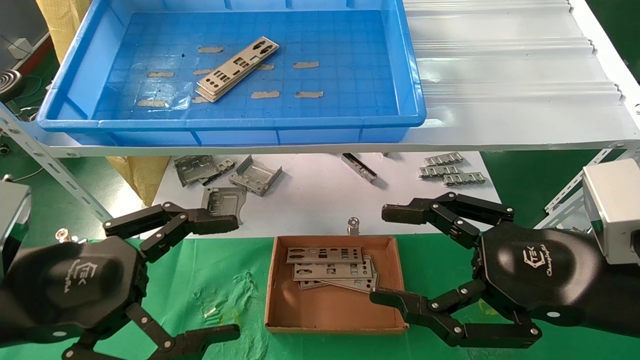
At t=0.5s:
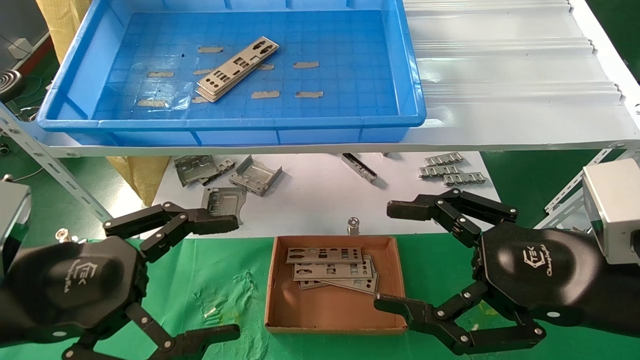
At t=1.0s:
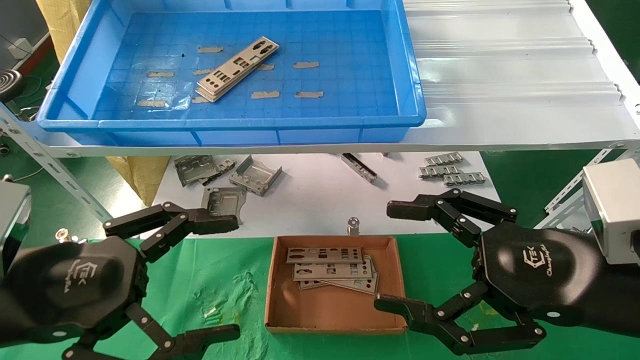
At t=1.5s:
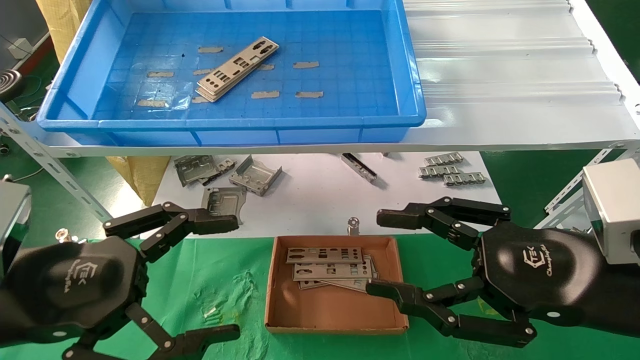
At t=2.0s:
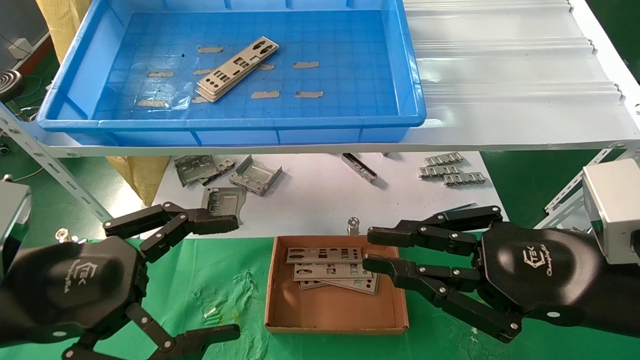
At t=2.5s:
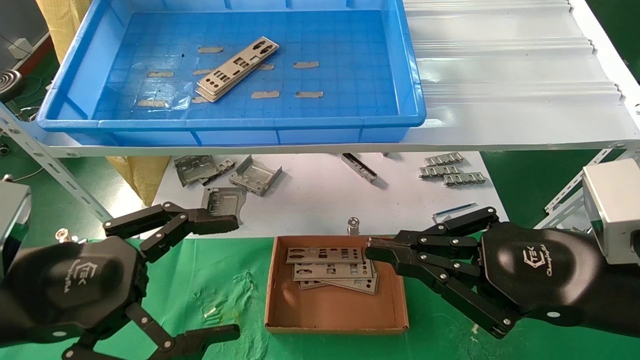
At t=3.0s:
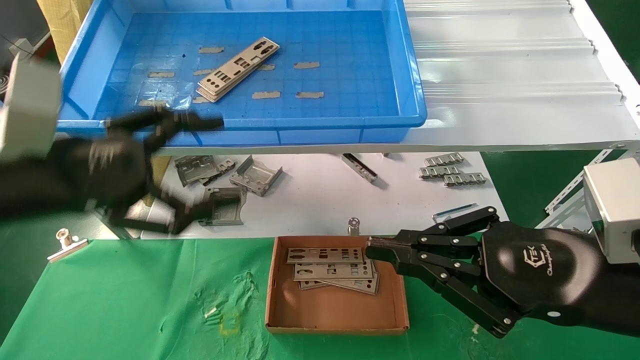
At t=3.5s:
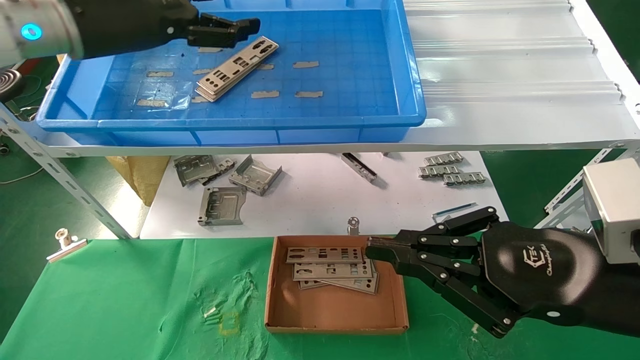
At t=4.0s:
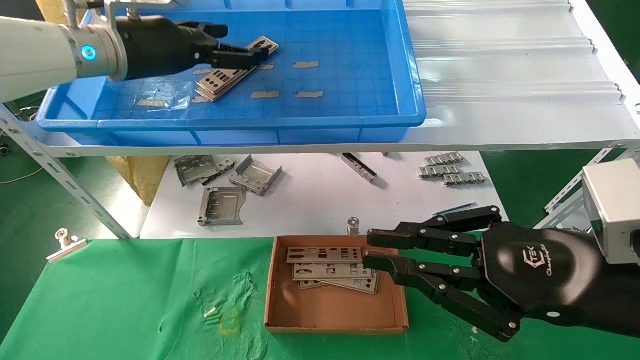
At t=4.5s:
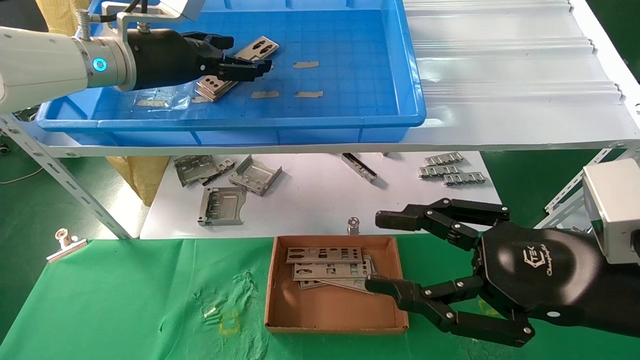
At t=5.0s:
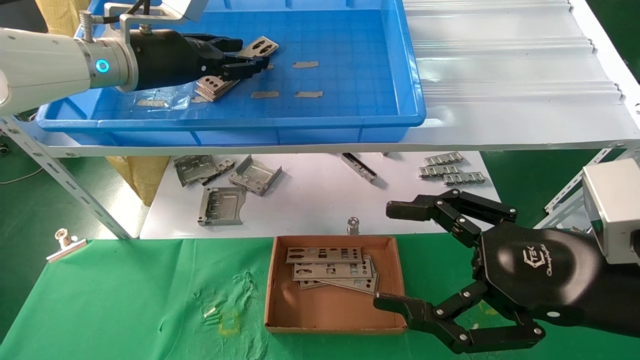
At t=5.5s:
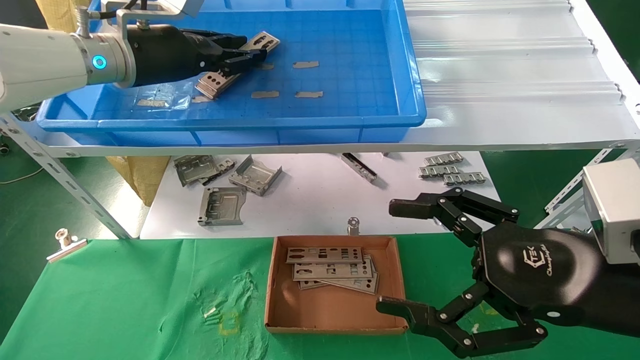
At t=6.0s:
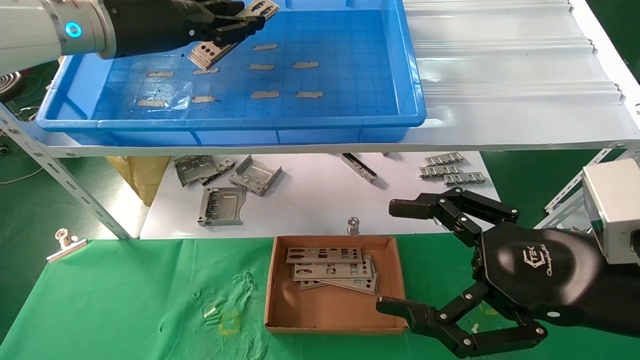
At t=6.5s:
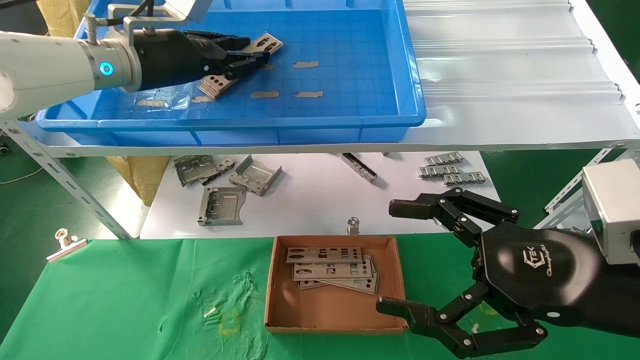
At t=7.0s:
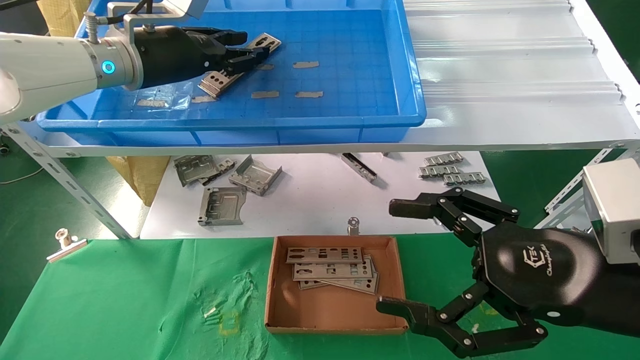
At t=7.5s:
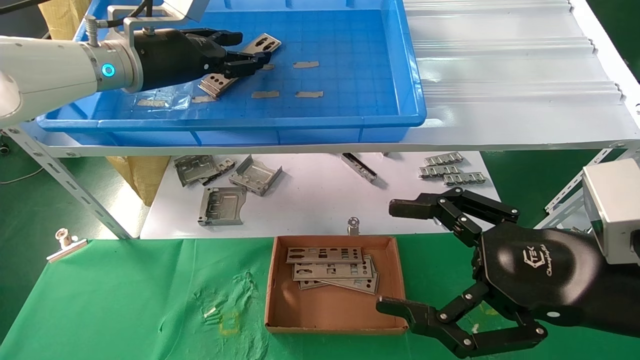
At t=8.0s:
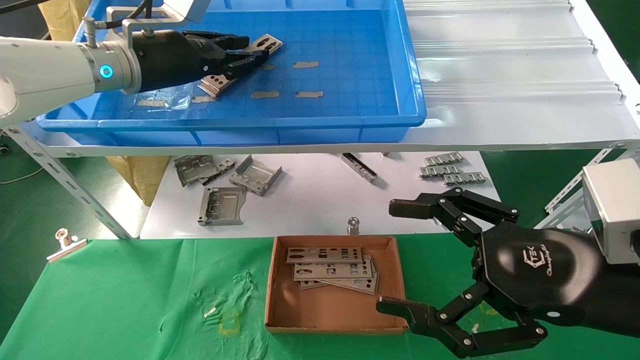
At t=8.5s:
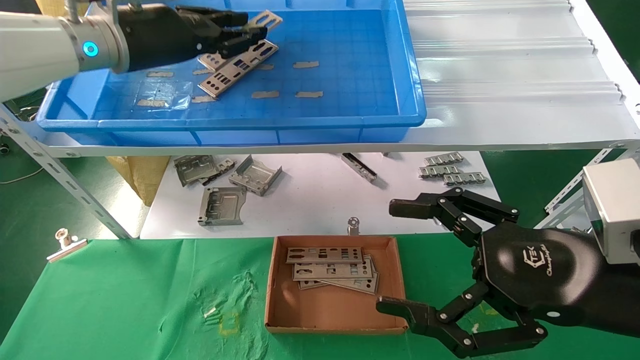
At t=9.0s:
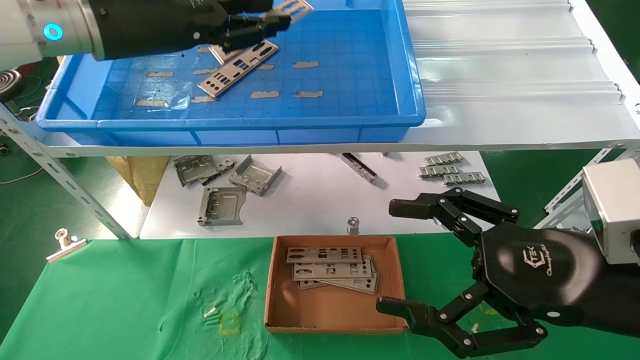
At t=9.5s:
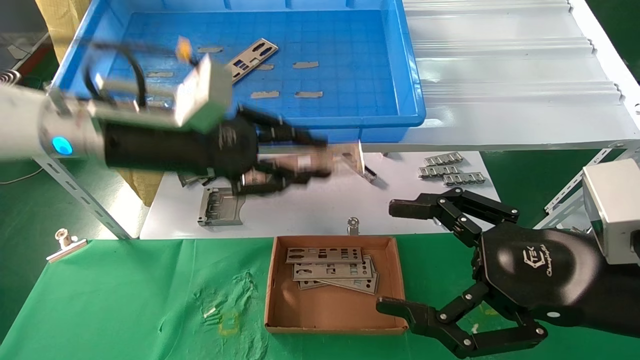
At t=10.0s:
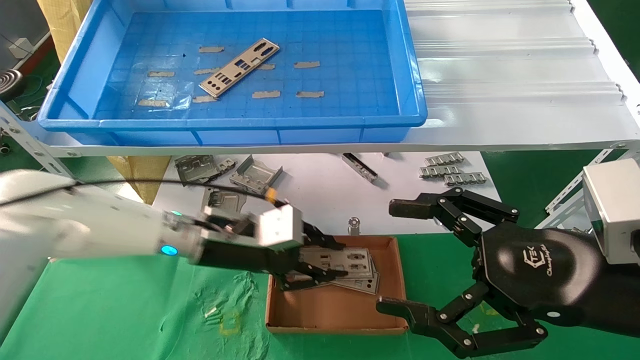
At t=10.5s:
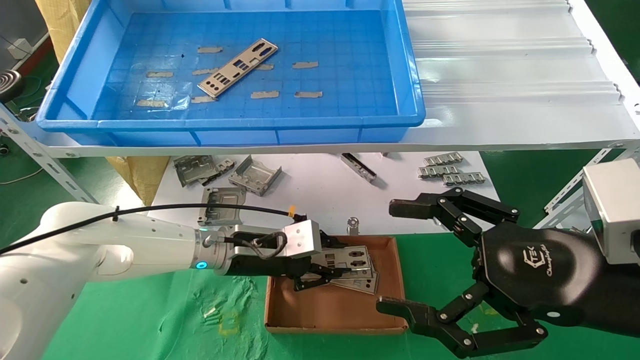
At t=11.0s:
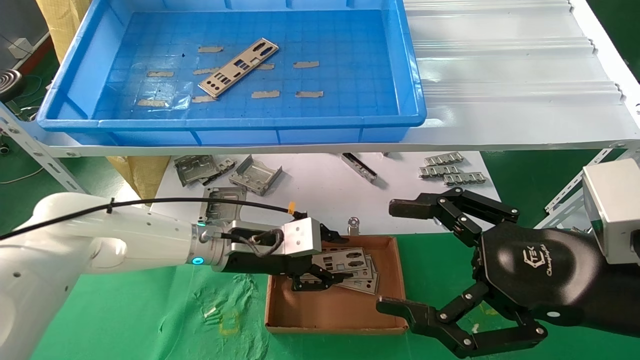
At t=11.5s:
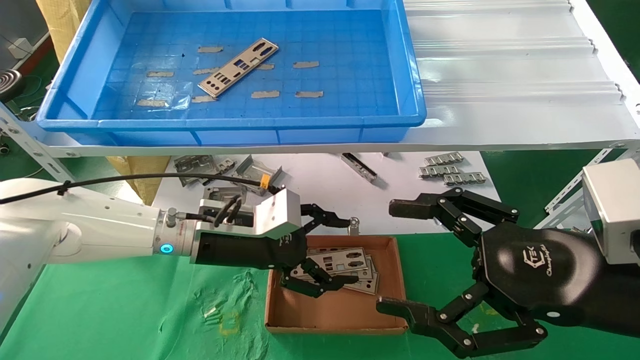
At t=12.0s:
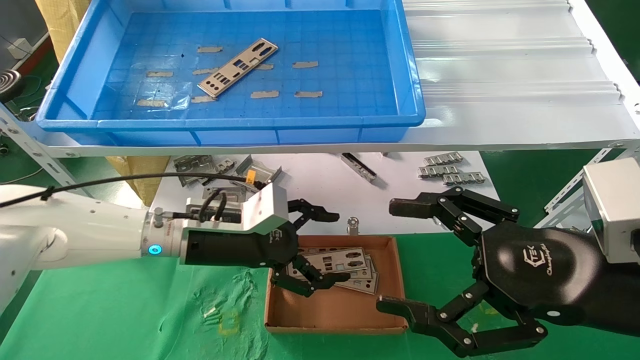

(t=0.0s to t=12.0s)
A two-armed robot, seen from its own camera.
Task of the whole recording: pick up the parts on the tray and put them in the cardboard box.
Step, t=3.5s - t=8.0s: Pick up the IO bracket from the container box.
Step, t=8.5s - t=11.0s: Place the IO bracket into the ingredient slot.
t=0.0s - t=2.0s: The right gripper closes its fingers.
t=2.0s - t=4.0s: The left gripper moves forward and upward, some 30 cm.
t=4.0s - t=6.0s: The left gripper closes up. Meanwhile the right gripper opens its fingers.
t=6.0s - t=8.0s: The grippers move only a little.
t=8.0s - t=10.0s: The left gripper heads downward, covering roughly 20 cm.
t=10.0s - t=12.0s: The left gripper opens its fingers.

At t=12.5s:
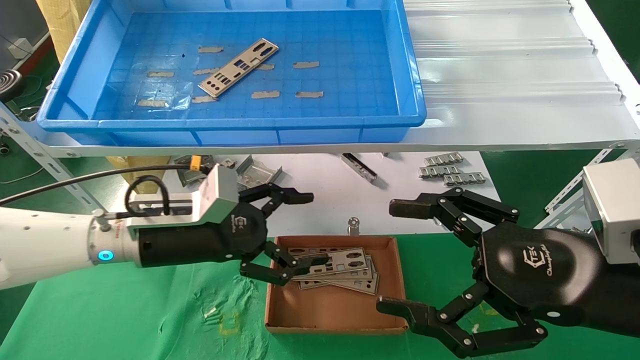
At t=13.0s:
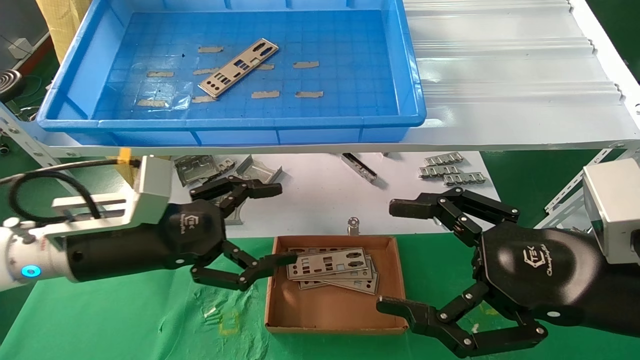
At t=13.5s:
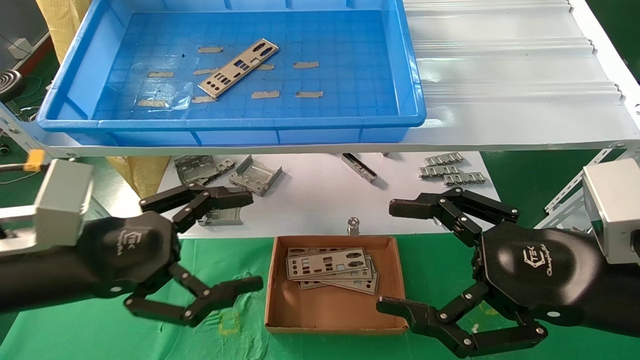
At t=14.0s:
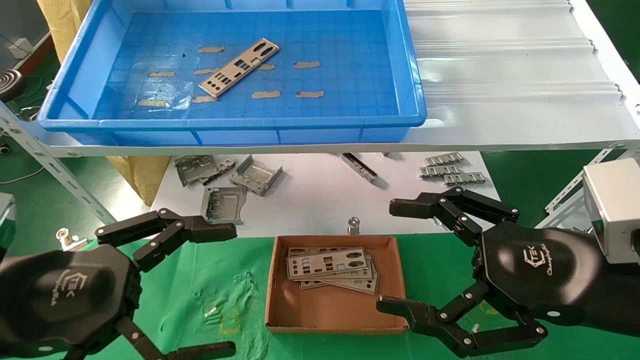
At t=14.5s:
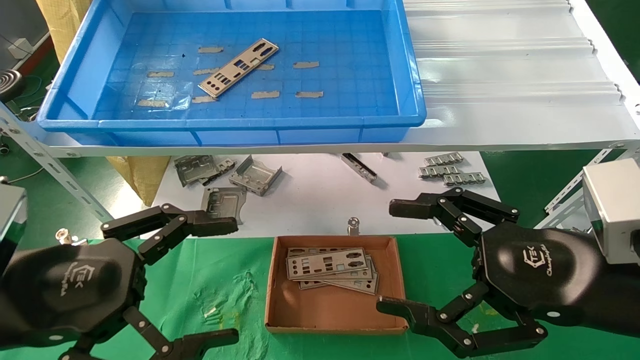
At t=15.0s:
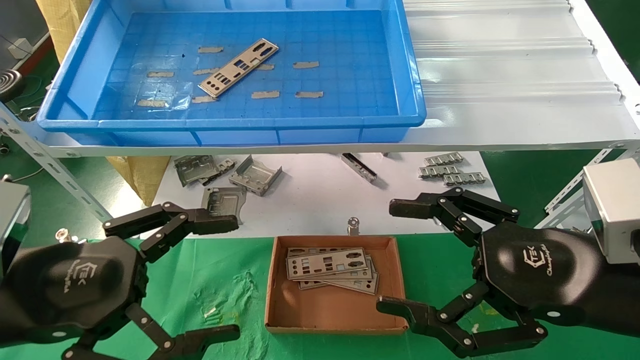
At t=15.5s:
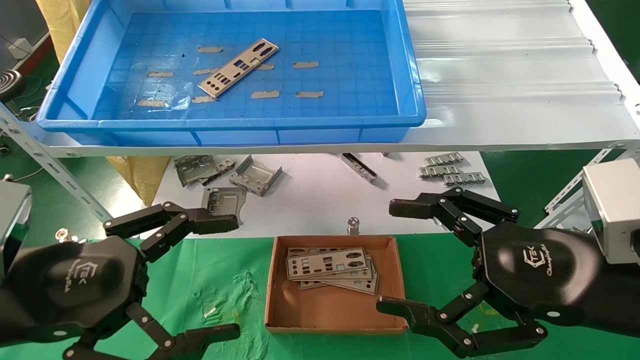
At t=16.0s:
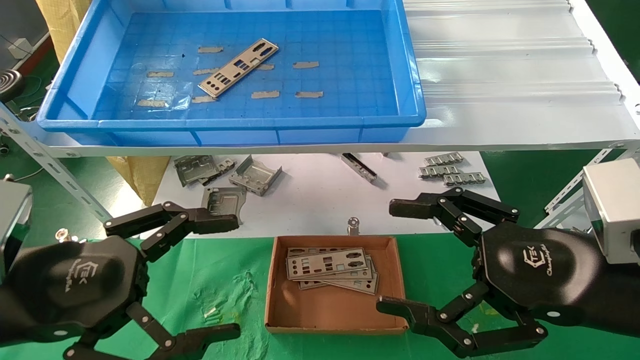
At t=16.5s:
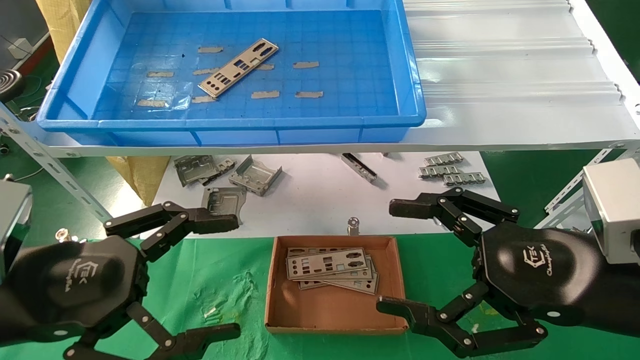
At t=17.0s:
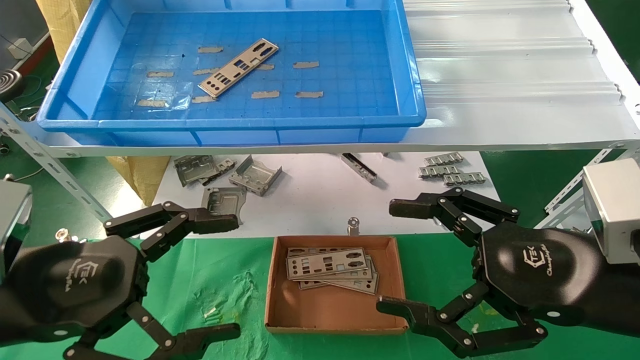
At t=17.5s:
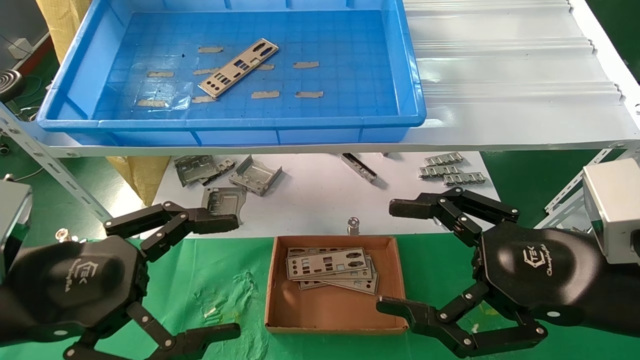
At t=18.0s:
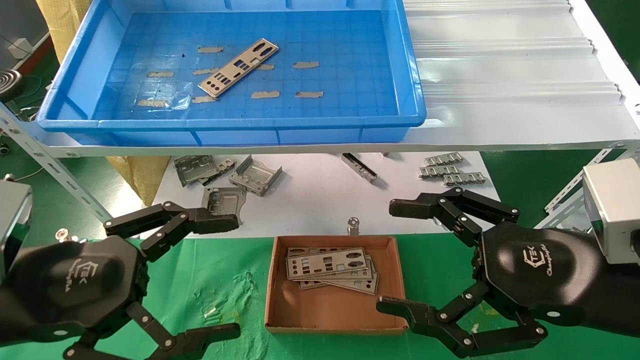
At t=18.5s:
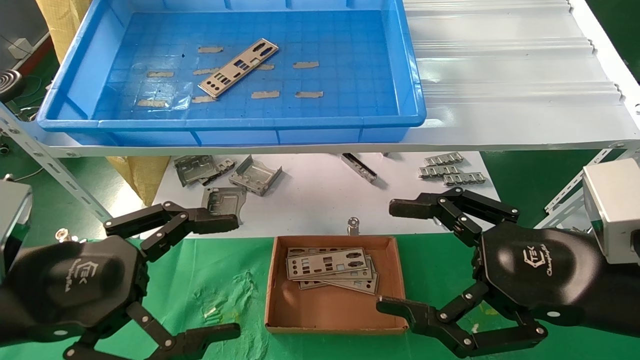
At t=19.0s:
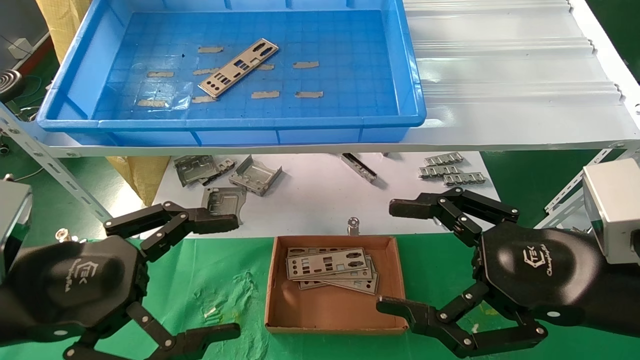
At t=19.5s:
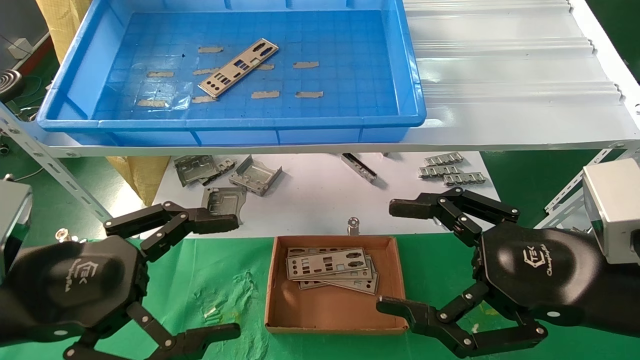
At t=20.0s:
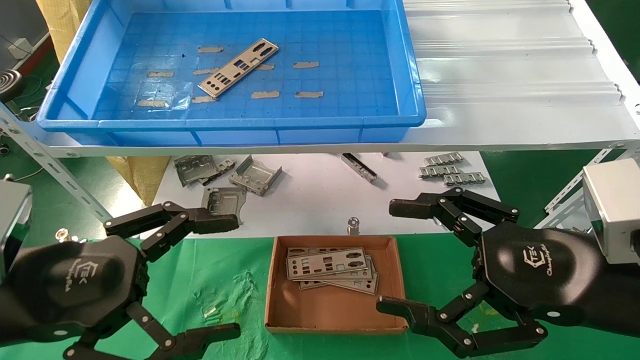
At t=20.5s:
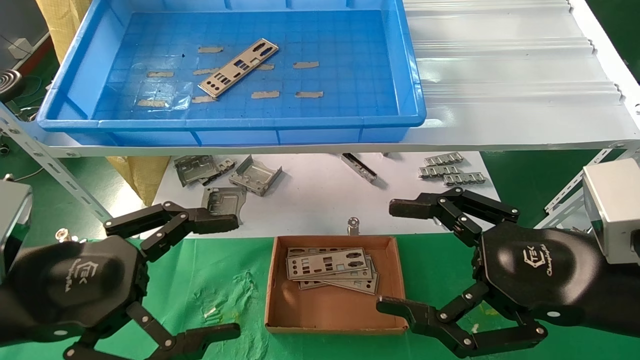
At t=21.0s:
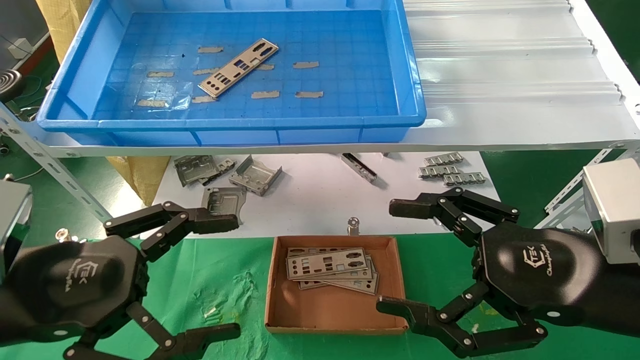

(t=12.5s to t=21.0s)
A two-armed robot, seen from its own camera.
Task of the whole recording: pick up the parts on the tray and put them in the cardboard box.
t=12.5s - t=14.5s: The left gripper travels backward and to the left by approximately 20 cm.
t=14.5s - t=21.0s: Neither gripper changes place.
